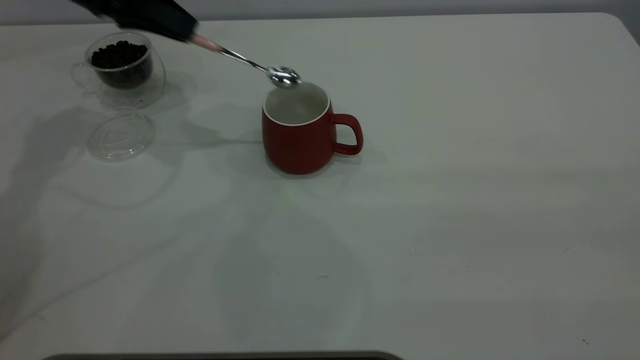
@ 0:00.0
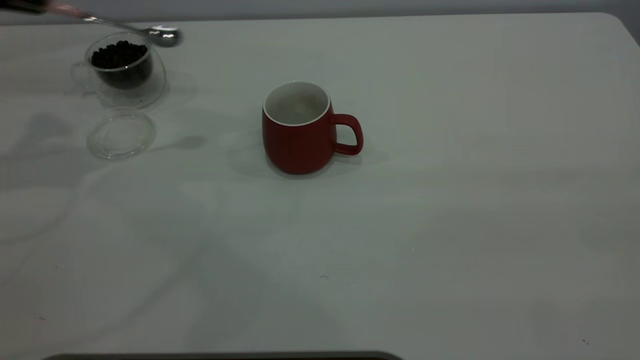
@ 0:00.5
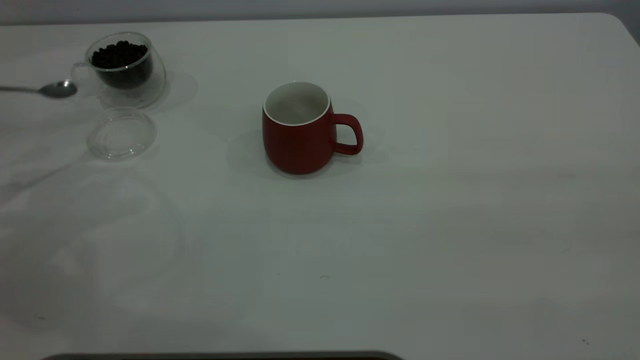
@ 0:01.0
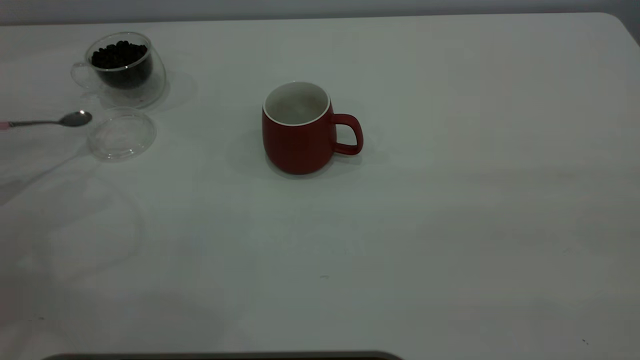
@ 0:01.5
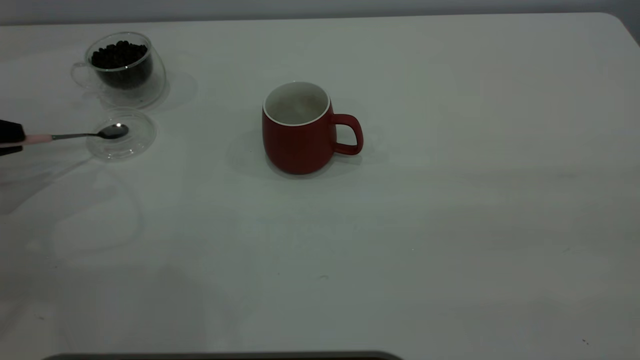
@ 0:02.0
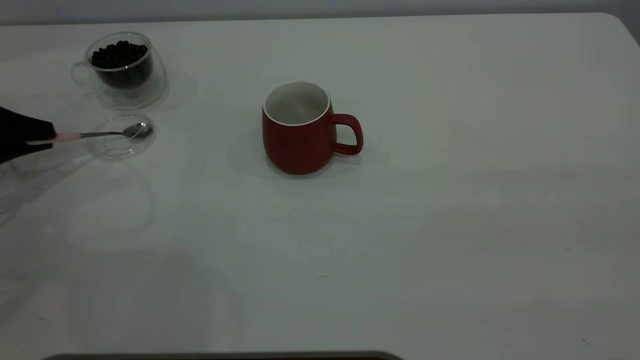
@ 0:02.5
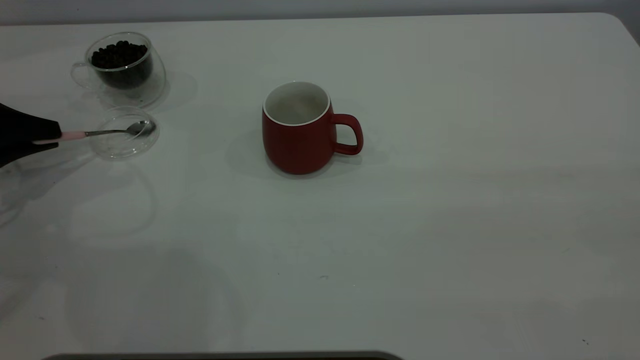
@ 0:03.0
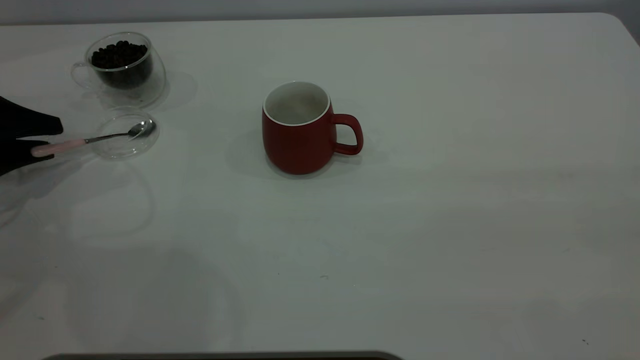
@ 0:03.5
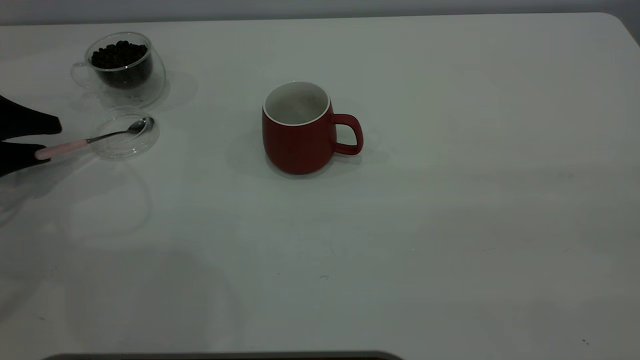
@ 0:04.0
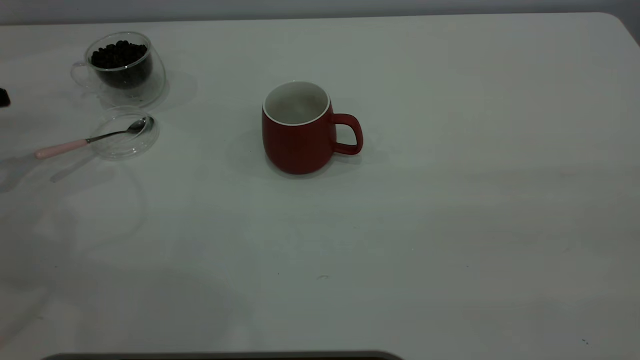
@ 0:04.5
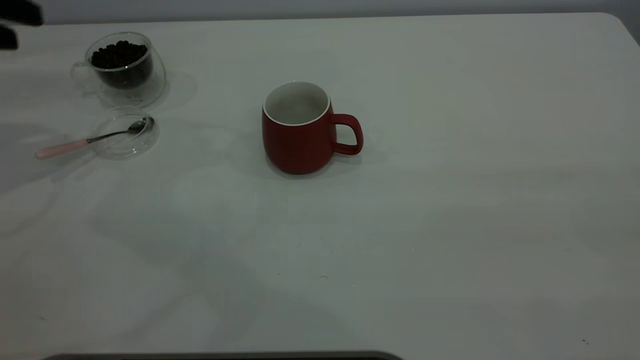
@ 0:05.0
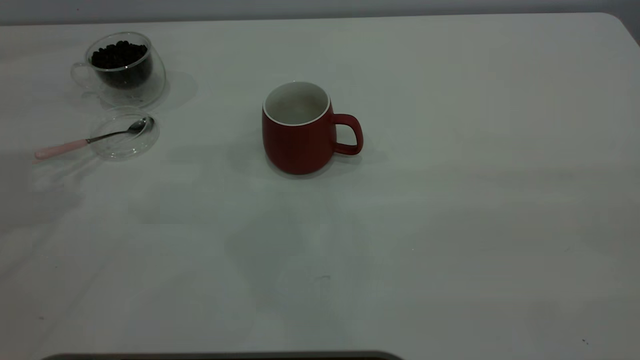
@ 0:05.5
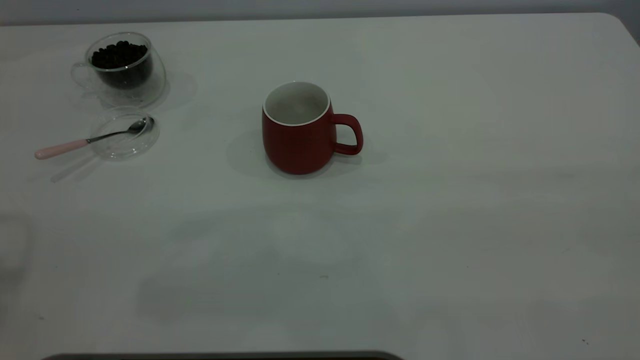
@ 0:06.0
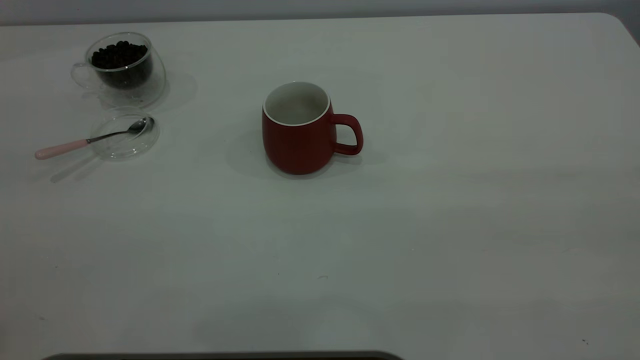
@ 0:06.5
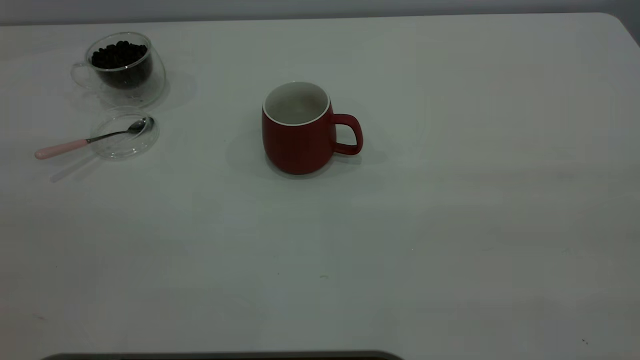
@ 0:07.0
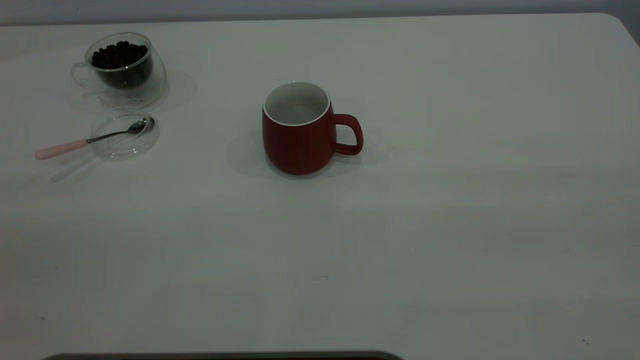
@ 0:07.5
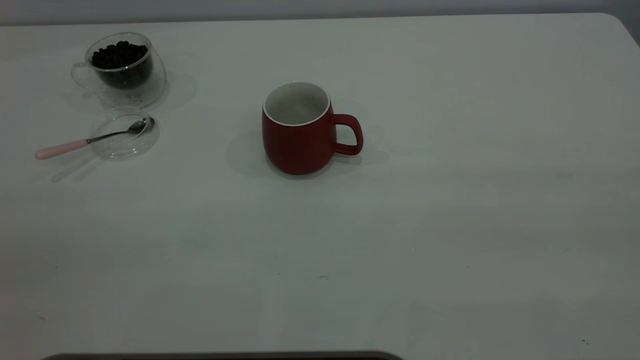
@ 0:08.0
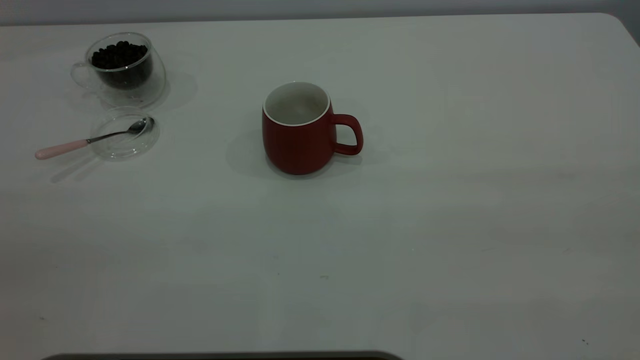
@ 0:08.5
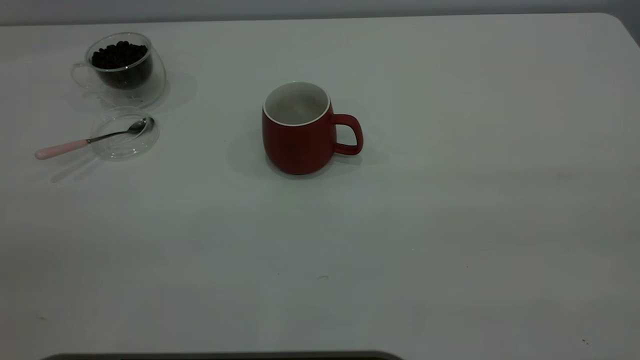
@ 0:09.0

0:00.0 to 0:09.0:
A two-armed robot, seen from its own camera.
Task of the whole recording: the right gripper place the red cup in the center of the table, the left gripper take the pink spoon from the cup lid and scoop out the coffee beans from the coffee cup and put them into the red cup, the left gripper put the spoon back into the cup lid.
Step, 0:00.5 to 0:04.0: Place the spoon back in its original place.
0:00.0 to 0:02.0: The left gripper heads to the left, backward and downward, covering about 25 cm.
0:02.0 to 0:04.5: The left gripper opens its fingers.

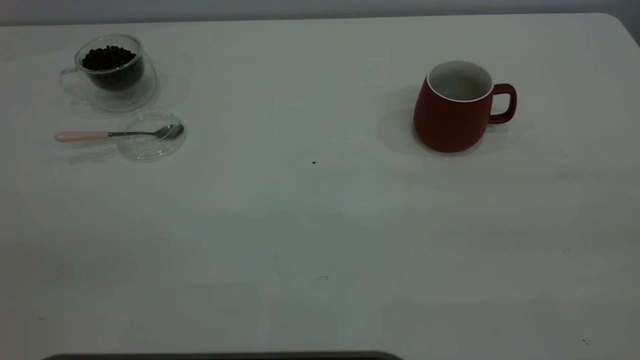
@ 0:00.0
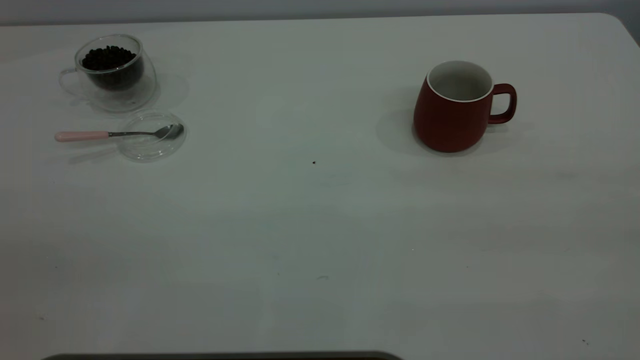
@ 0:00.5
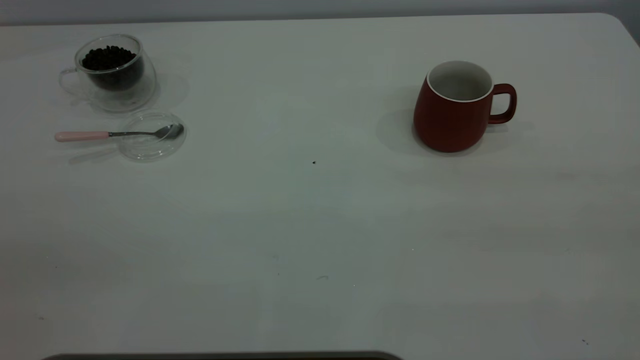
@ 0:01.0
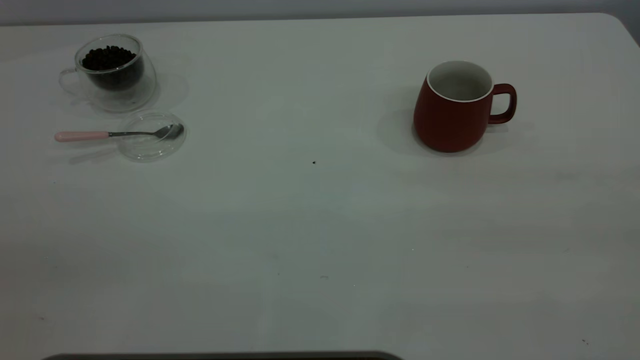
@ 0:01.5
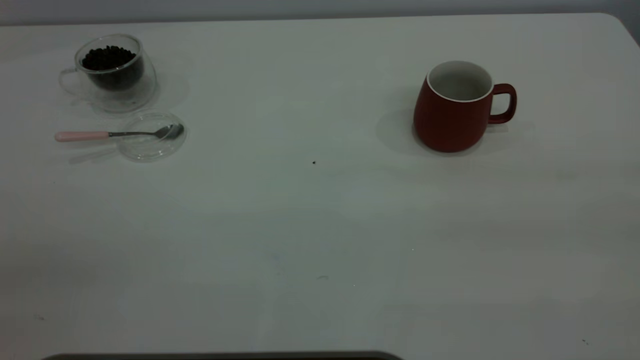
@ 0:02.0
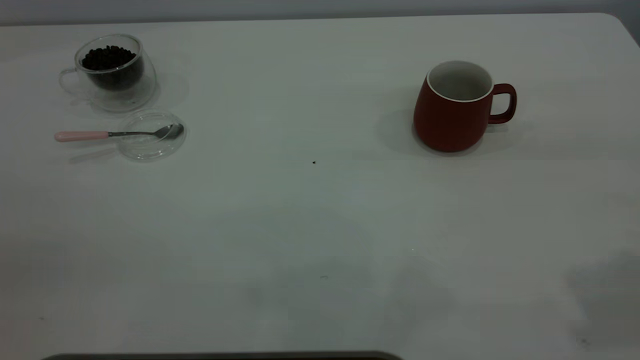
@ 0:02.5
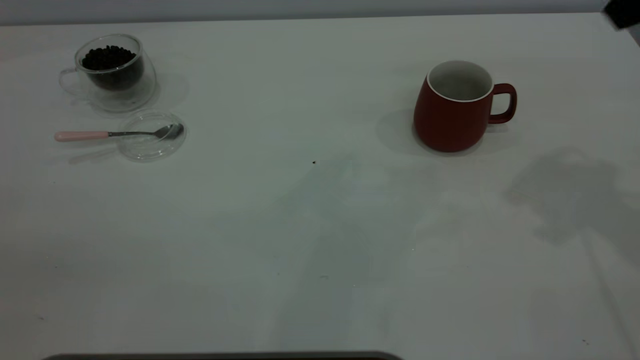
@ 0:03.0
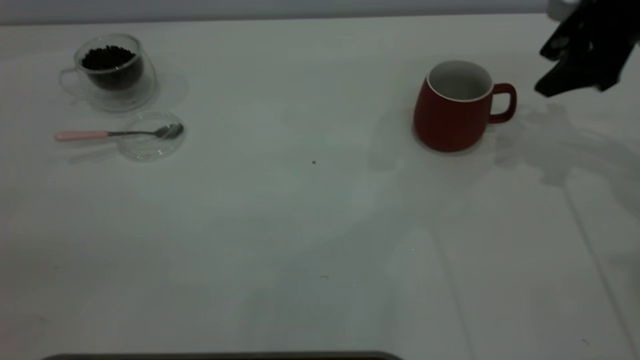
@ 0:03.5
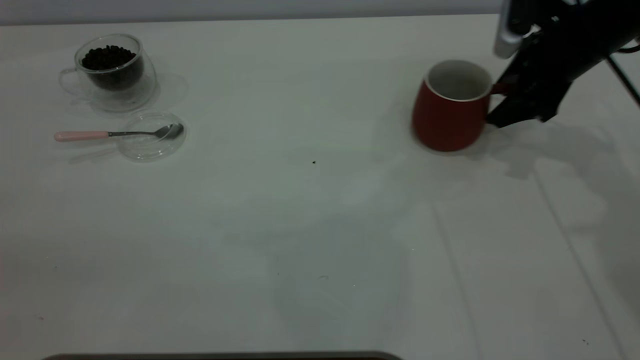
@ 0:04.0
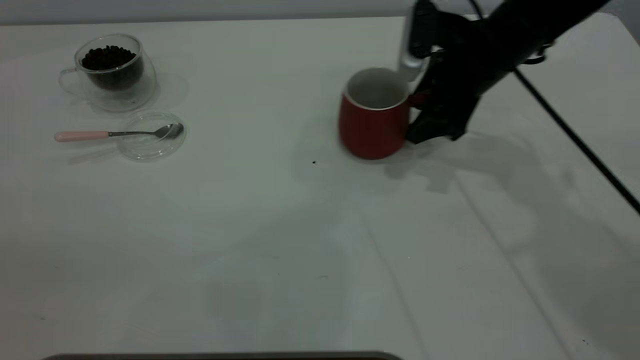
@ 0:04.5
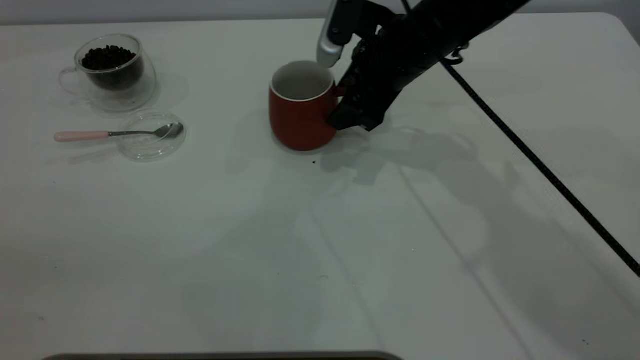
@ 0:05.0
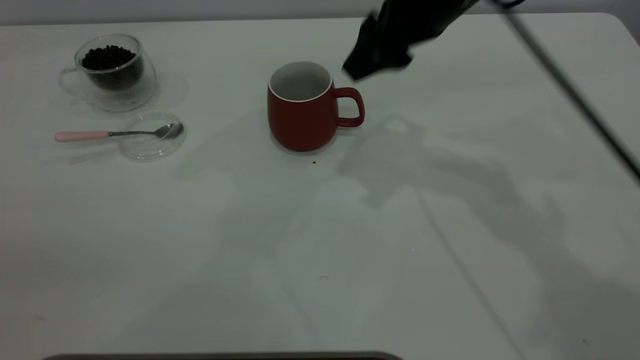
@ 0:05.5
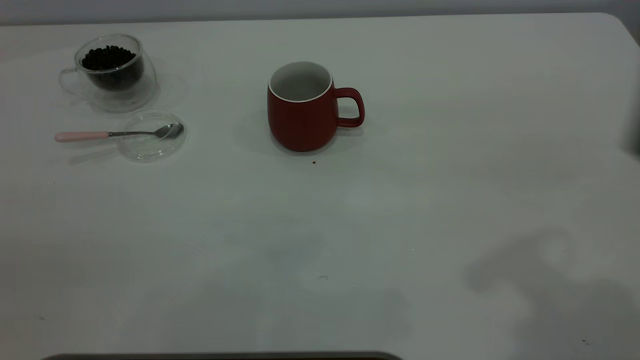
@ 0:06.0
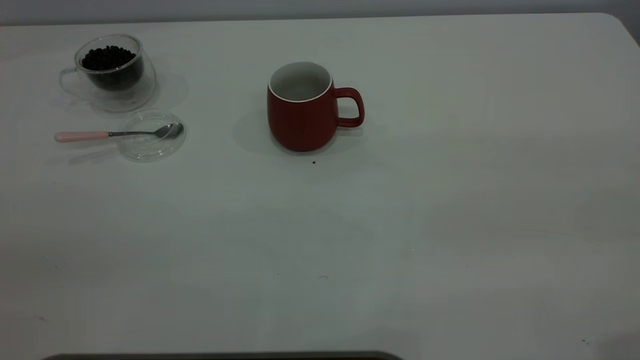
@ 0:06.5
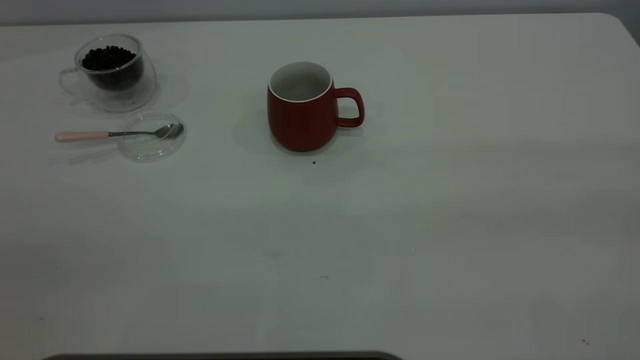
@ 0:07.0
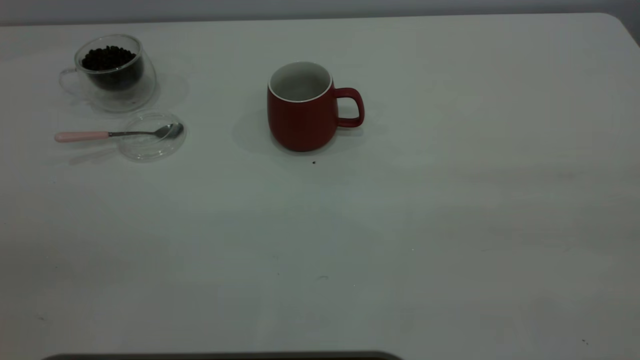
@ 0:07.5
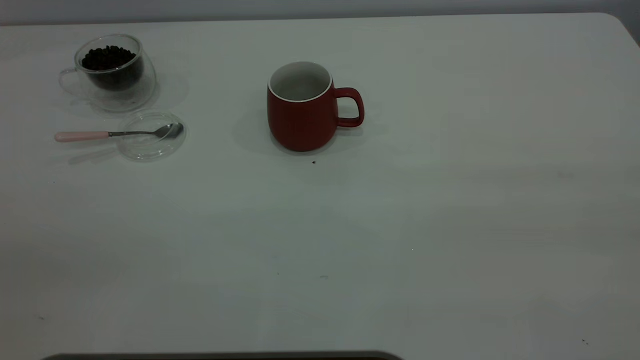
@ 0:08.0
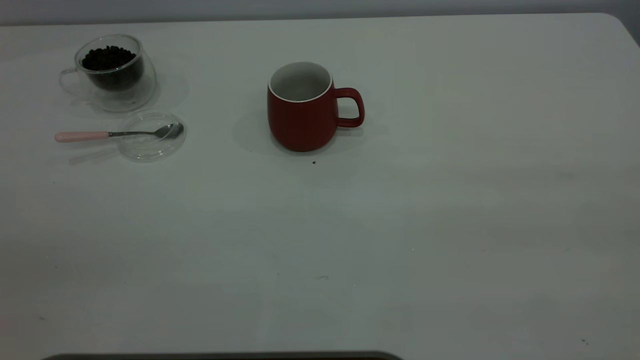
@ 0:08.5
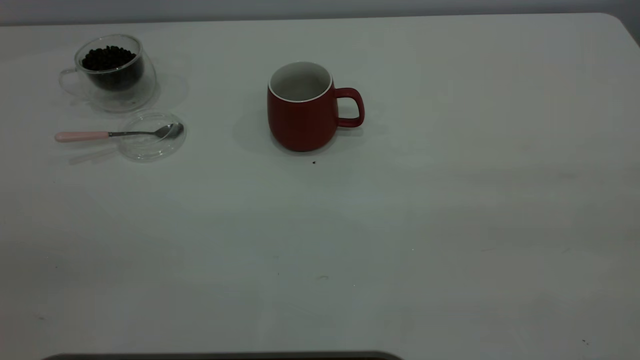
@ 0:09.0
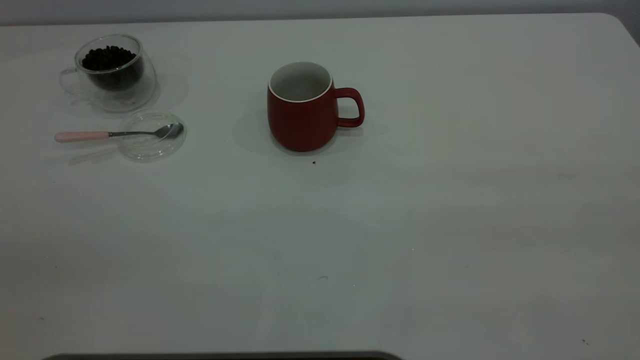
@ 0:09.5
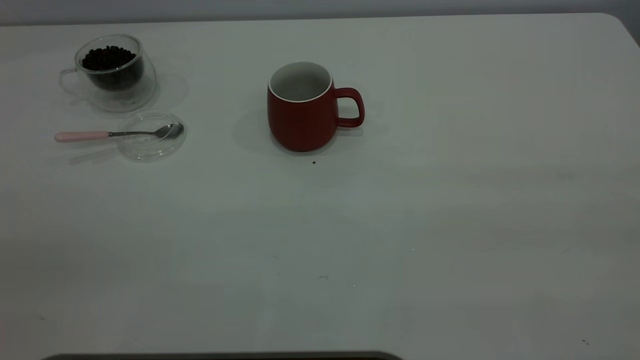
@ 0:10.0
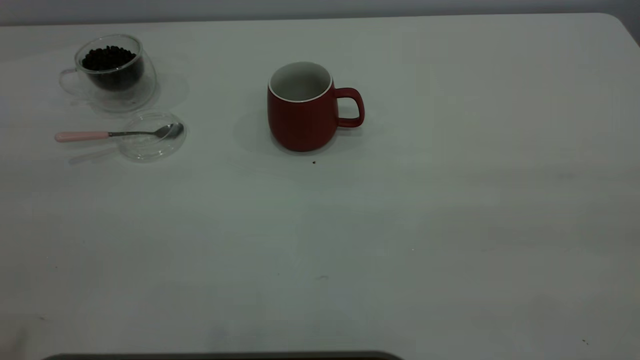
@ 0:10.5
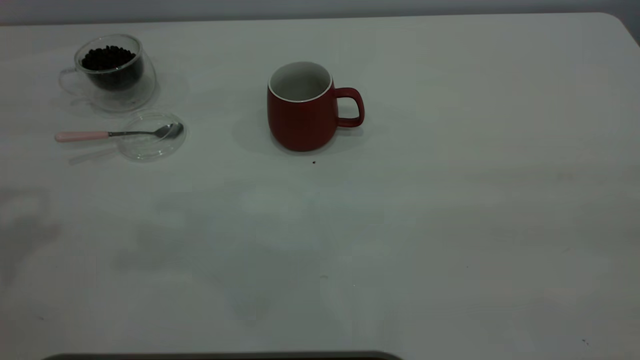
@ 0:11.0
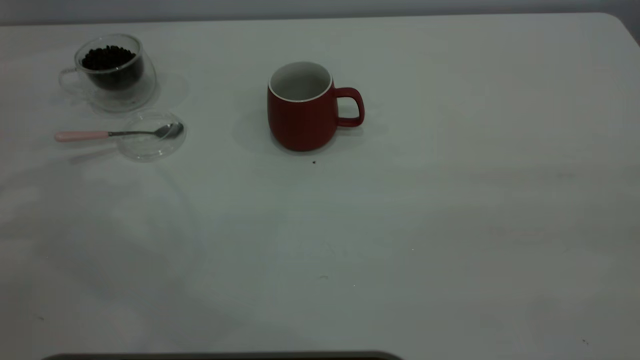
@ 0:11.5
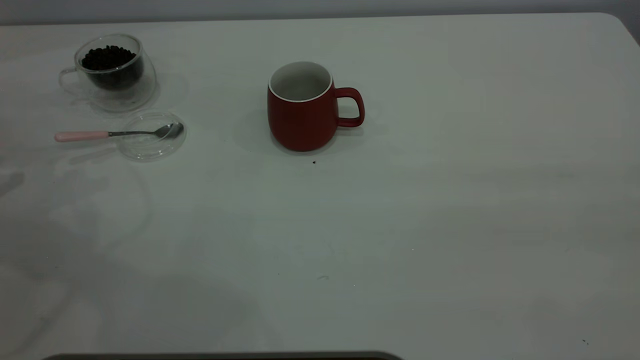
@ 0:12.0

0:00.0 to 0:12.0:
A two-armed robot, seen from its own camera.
Task of the whole recording: the right gripper place the red cup in the center of the table, the left gripper take the pink spoon from the cup lid and scoop out the coffee beans from the coffee cup and put them into the red cup, the left gripper put the spoon back into the cup lid.
Step, 0:00.0 to 0:05.5: Move the cup to the center of view.
0:02.0 to 0:04.0: The right gripper shifts about 50 cm forward and downward.
0:04.0 to 0:06.0: The right gripper is displaced backward and upward by about 30 cm.
0:08.0 to 0:10.0: The two grippers keep their place.
